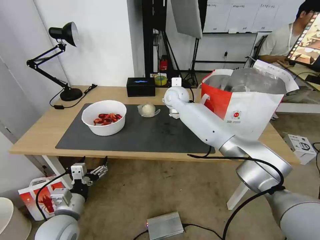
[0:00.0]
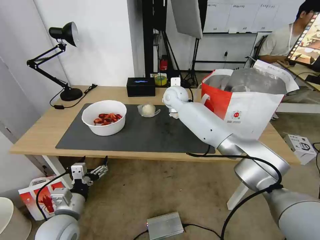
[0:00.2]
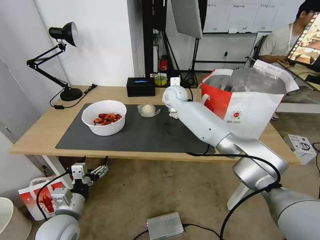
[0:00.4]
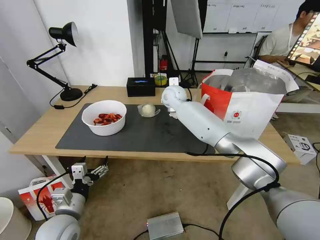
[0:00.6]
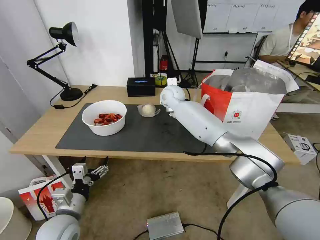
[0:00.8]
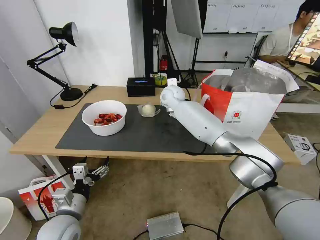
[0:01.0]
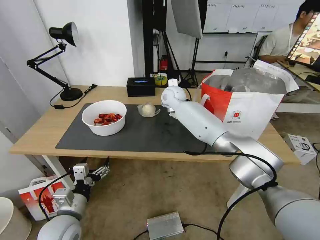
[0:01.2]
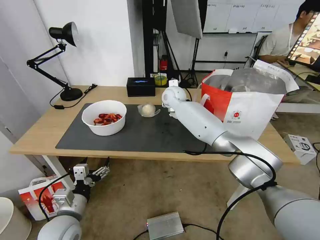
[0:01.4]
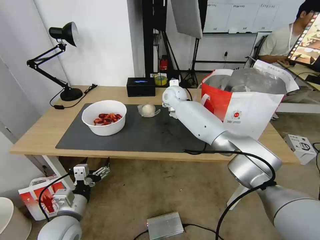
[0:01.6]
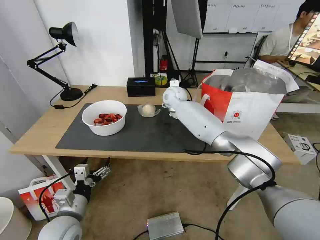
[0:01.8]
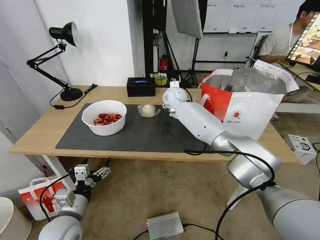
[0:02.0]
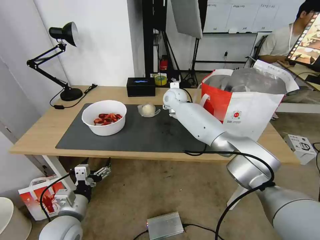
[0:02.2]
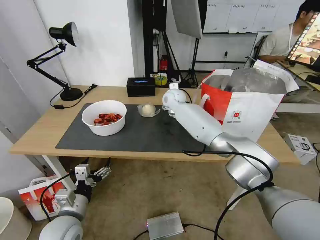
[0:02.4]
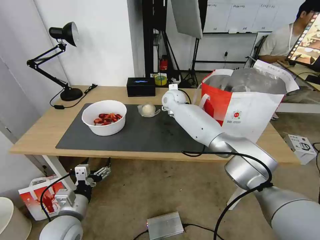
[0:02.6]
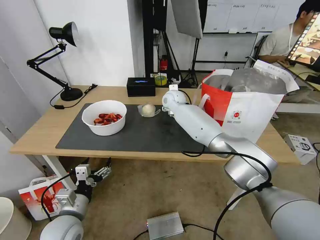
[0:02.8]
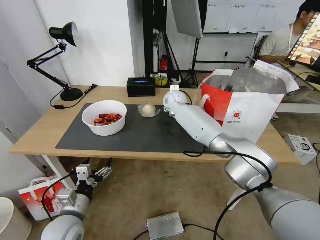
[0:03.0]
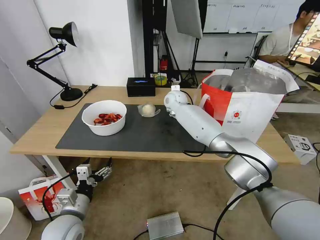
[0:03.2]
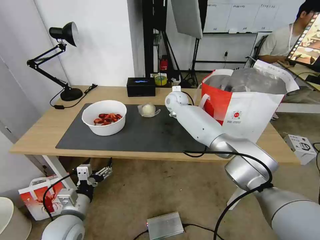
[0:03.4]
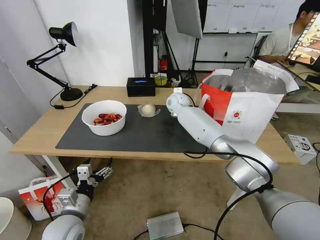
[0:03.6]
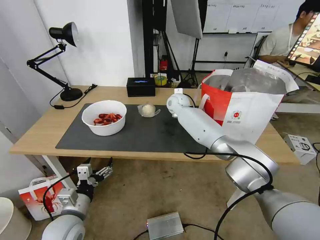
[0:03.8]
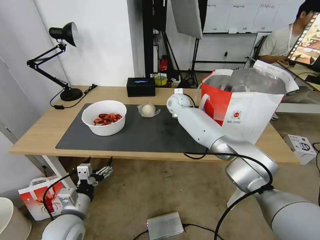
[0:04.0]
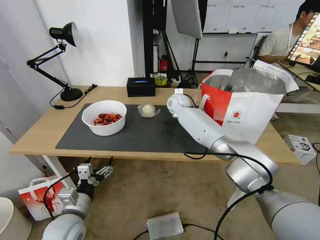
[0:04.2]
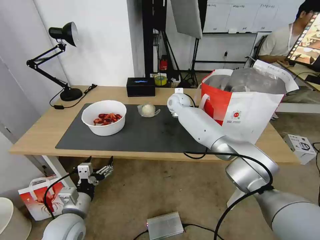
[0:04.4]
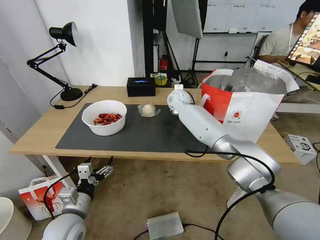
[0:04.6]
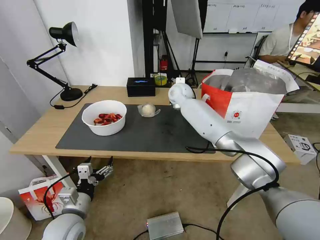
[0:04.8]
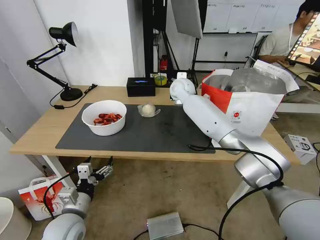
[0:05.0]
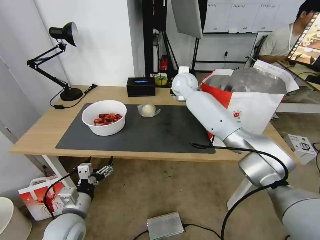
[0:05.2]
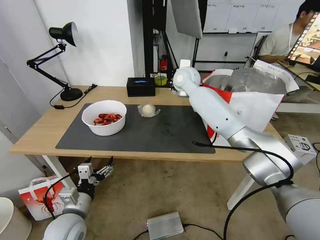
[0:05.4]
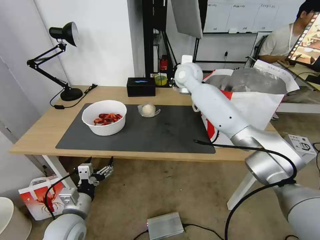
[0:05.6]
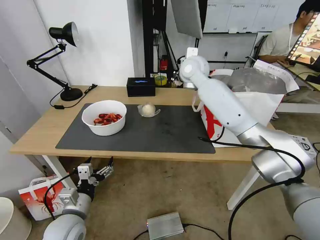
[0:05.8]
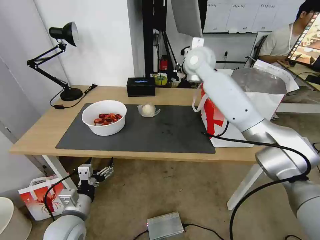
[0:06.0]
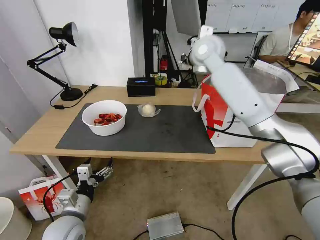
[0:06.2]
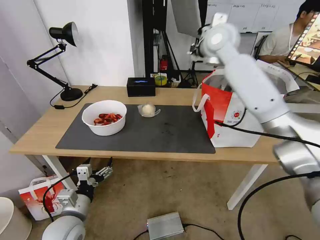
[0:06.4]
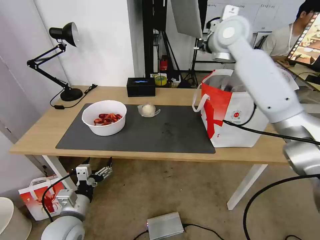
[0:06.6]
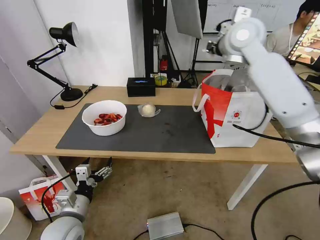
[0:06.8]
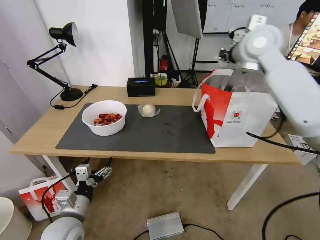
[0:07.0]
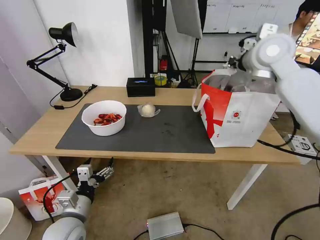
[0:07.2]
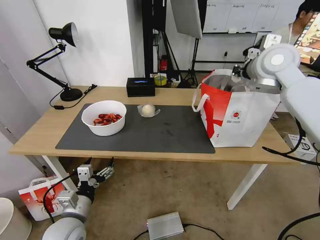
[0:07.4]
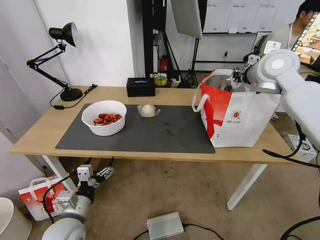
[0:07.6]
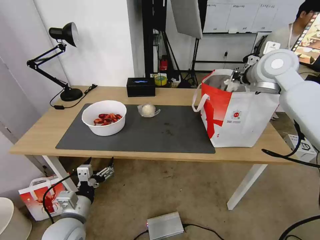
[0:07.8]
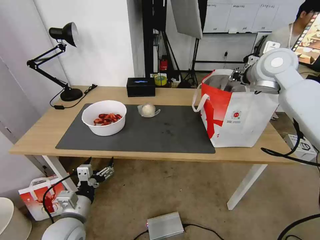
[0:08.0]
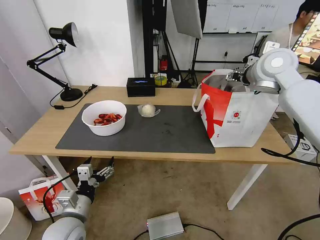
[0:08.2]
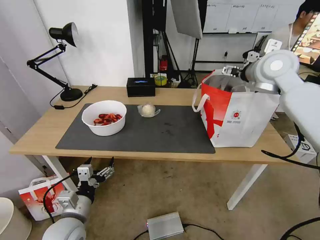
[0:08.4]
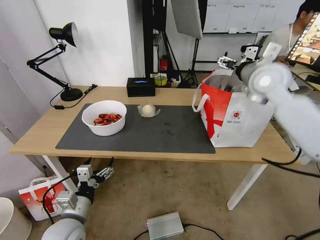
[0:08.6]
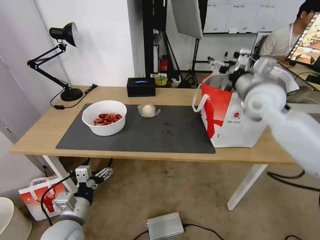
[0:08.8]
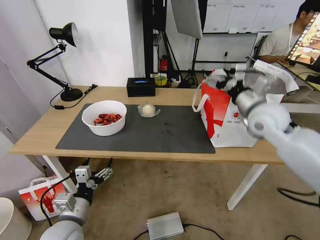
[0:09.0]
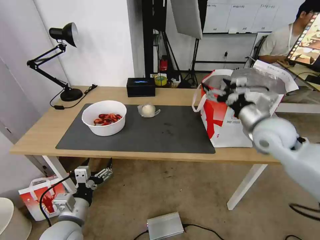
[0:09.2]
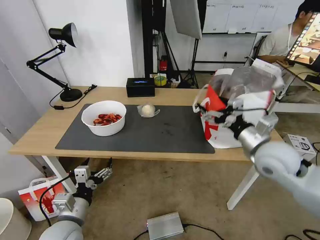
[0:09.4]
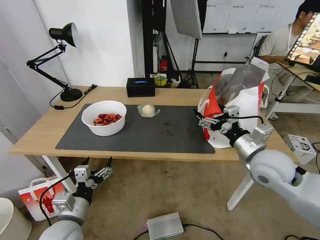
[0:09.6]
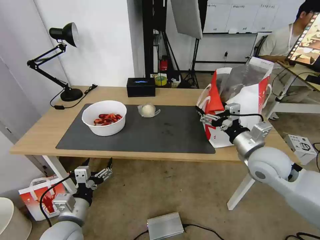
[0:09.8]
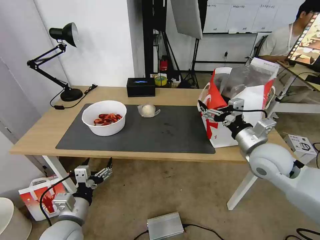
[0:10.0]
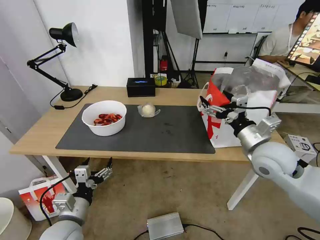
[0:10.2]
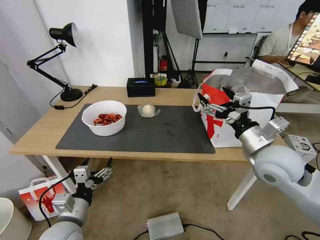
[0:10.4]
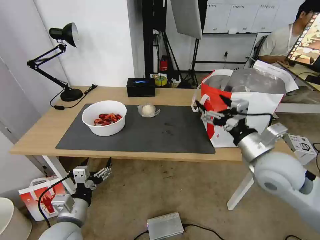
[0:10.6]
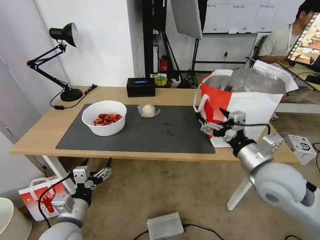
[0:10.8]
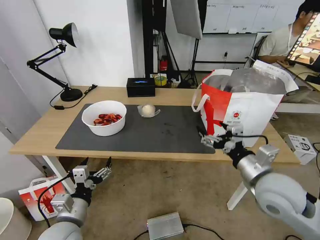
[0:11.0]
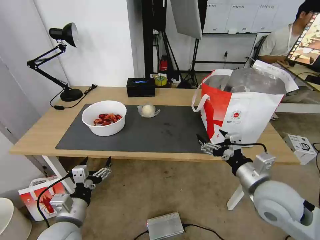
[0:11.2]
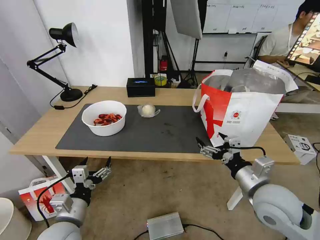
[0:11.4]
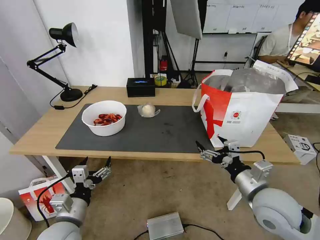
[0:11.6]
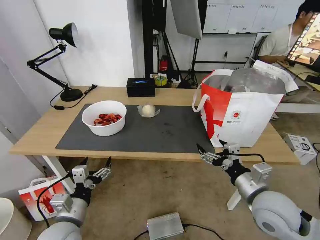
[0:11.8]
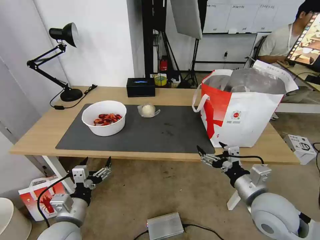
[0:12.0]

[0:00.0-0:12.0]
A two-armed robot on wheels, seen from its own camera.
Task of the whole recording: Pick up the trash from the table and place it into the takeout bag.
0:00.0 to 0:03.0: The grippers make only small movements.
0:03.0 to 0:04.4: The right gripper closes.
0:04.4 to 0:06.0: The right gripper goes some 20 cm upward.
0:06.0 to 0:07.6: The right gripper is displaced to the right and backward by some 20 cm.
0:07.6 to 0:09.0: The right gripper heads downward and backward, covering some 15 cm, and opens its fingers.
0:09.0 to 0:10.4: The right gripper goes roughly 15 cm backward and downward.
0:10.4 to 0:12.0: The right gripper goes about 15 cm backward and downward.

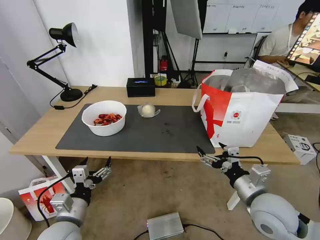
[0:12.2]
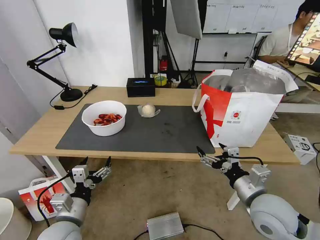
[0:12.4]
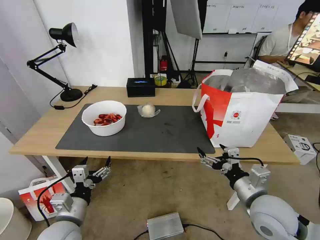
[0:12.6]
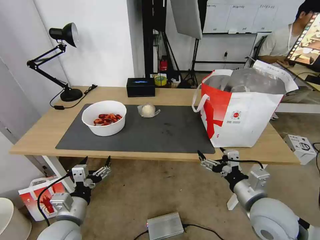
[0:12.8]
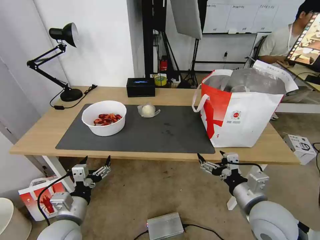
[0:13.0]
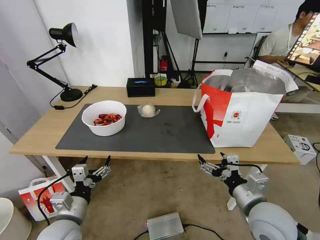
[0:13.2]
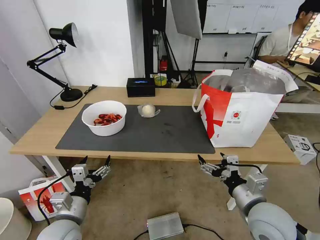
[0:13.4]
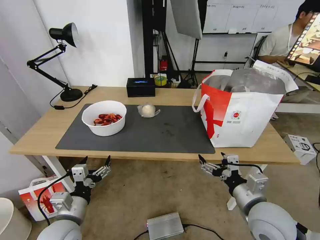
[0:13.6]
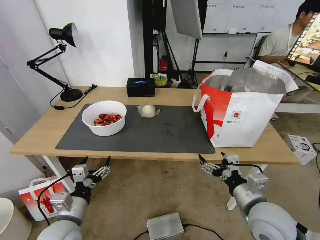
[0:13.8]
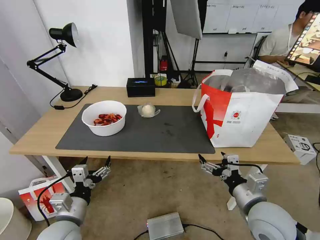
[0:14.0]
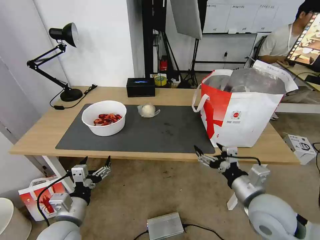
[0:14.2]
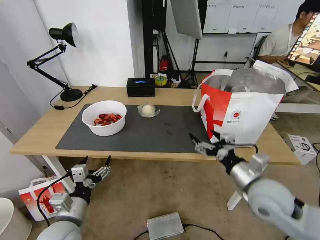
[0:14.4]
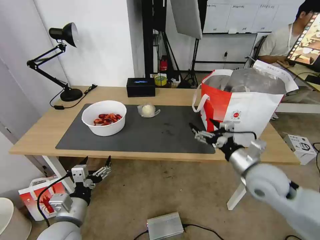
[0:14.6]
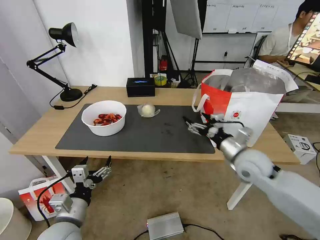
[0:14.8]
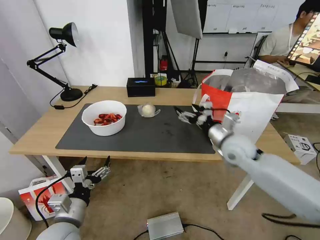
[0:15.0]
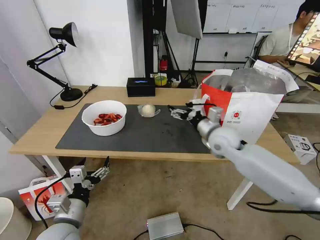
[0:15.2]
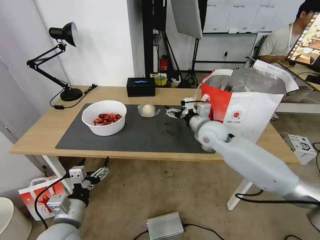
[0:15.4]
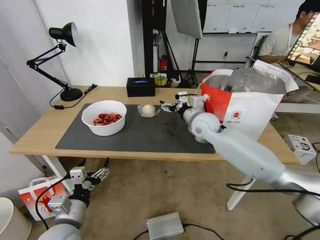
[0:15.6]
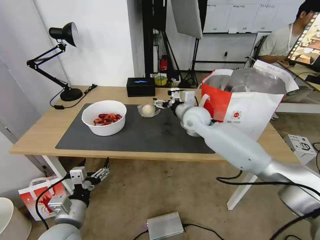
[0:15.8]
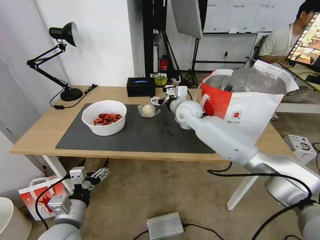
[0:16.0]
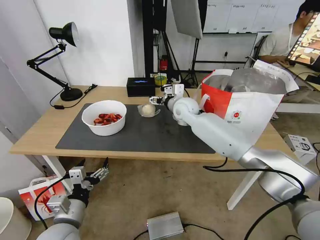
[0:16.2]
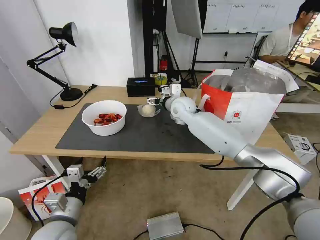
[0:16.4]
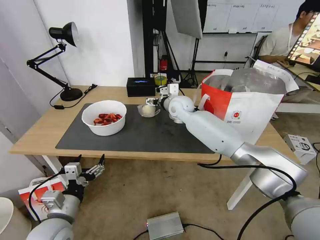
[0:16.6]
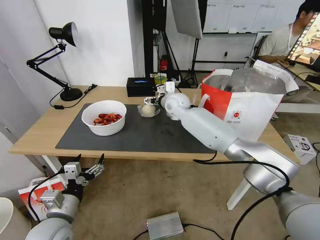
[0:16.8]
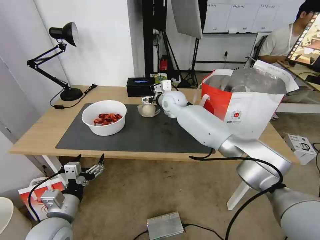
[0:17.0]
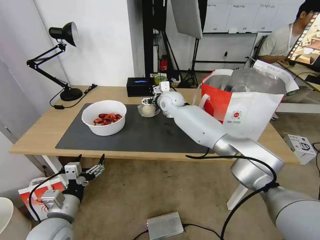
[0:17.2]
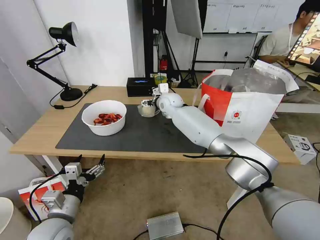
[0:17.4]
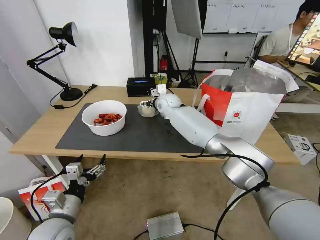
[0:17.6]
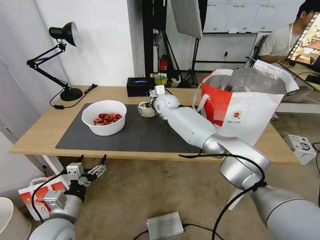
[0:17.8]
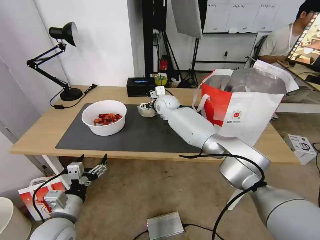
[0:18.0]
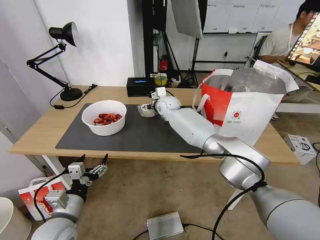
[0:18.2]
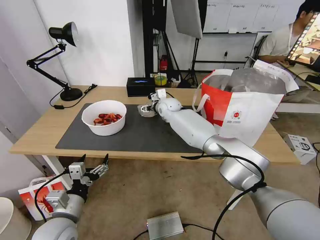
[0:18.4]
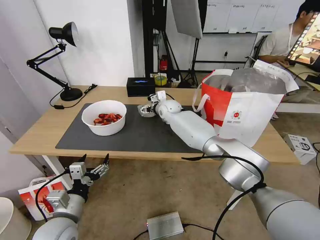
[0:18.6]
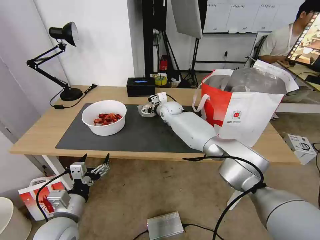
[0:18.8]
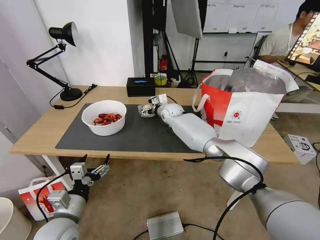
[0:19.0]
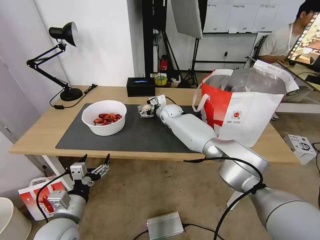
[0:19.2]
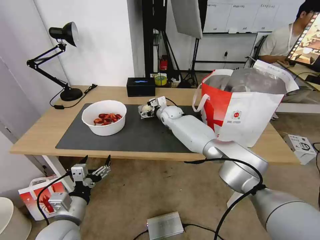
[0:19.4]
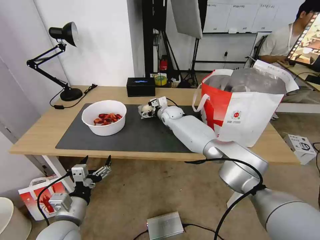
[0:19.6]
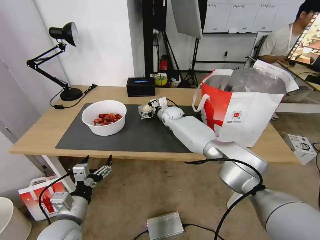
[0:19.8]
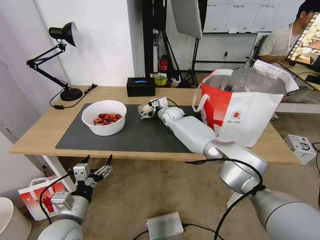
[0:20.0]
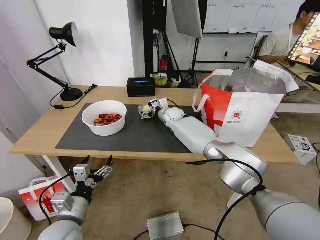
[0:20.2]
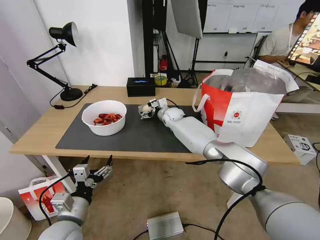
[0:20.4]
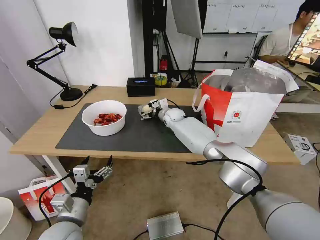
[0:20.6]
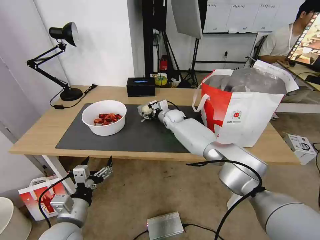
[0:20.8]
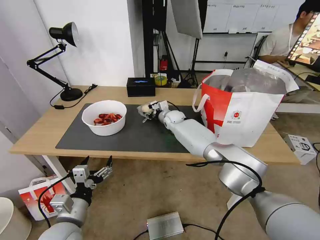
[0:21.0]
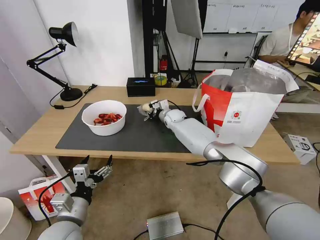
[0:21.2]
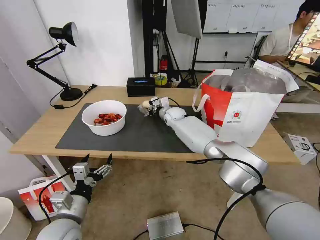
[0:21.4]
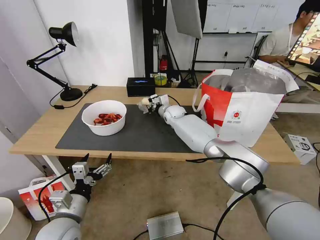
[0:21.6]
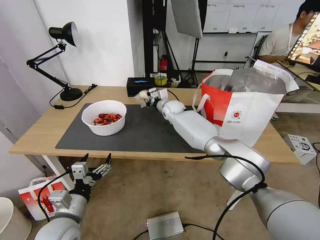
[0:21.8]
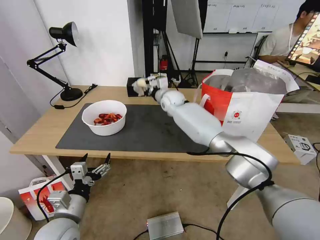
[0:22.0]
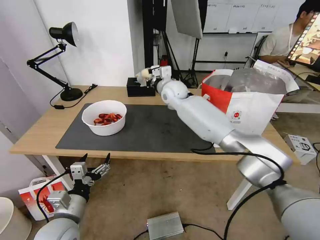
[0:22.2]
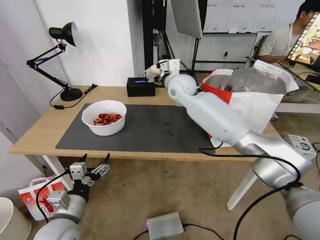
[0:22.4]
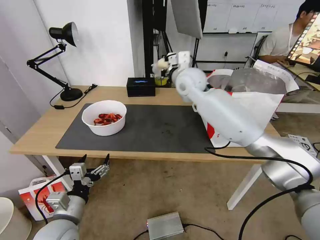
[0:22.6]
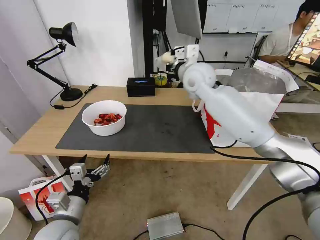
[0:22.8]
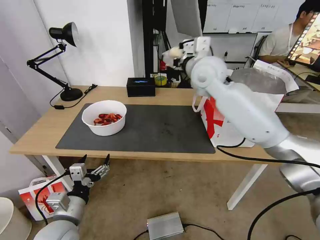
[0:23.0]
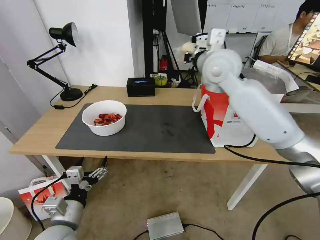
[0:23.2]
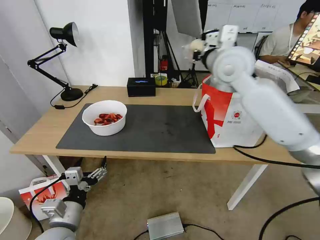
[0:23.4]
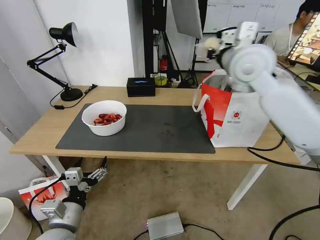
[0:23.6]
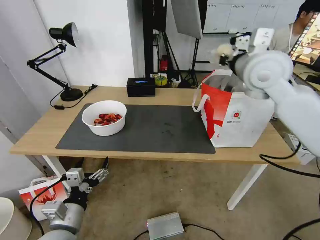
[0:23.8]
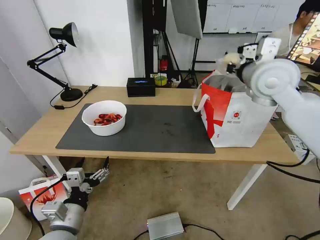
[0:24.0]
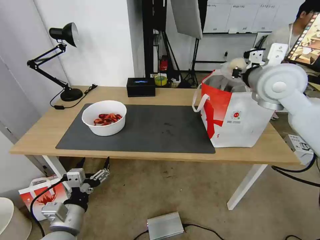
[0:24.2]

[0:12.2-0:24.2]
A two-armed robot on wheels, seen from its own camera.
Task of the whole recording: Pick up the trash from the table and place it into the takeout bag.
0:12.2 to 0:13.8: The grippers stay close to where they were, moving slightly.
0:13.8 to 0:15.2: The right gripper heads forward, covering some 20 cm.
0:15.2 to 0:16.6: The right gripper moves forward and to the left, about 20 cm.
0:16.6 to 0:18.2: The right gripper travels forward by some 5 cm.
0:18.2 to 0:19.8: The right gripper is displaced downward by some 5 cm.
0:19.8 to 0:21.2: The right gripper closes its fingers.
0:21.2 to 0:22.6: The right gripper travels upward by roughly 25 cm.
0:22.6 to 0:24.2: The right gripper shifts roughly 20 cm to the right and backward.
